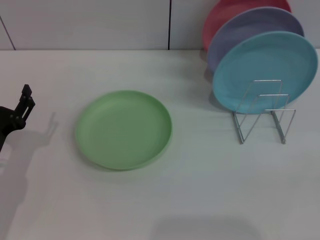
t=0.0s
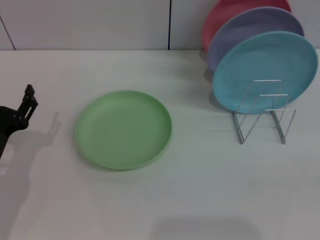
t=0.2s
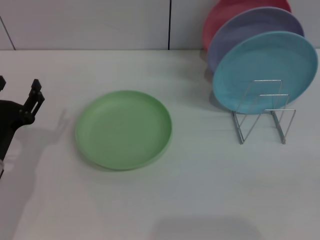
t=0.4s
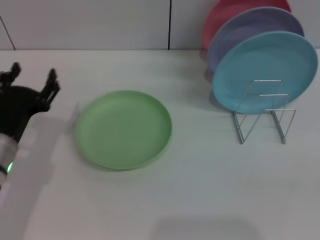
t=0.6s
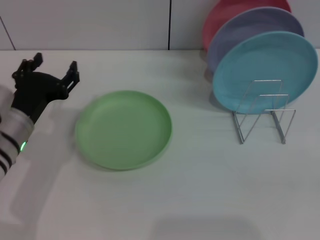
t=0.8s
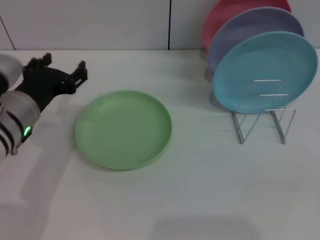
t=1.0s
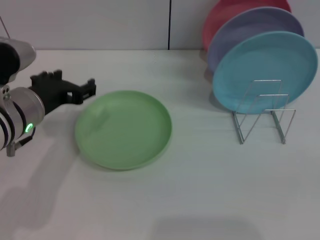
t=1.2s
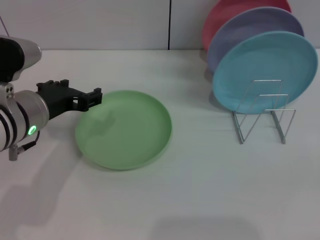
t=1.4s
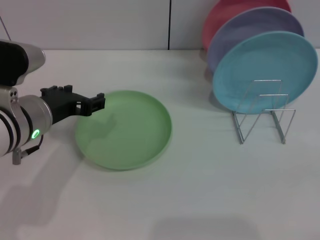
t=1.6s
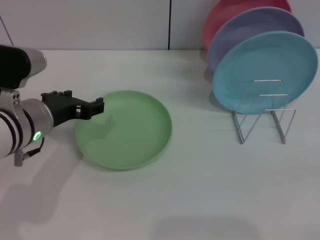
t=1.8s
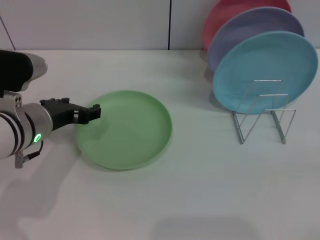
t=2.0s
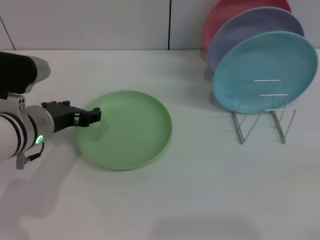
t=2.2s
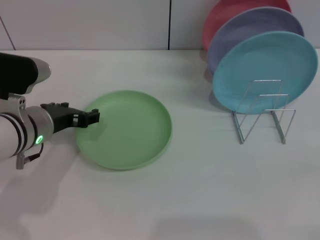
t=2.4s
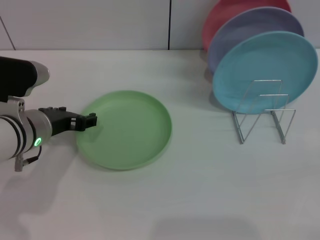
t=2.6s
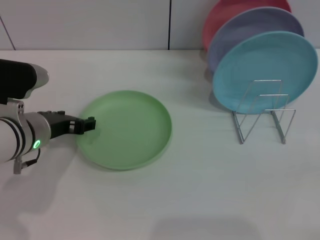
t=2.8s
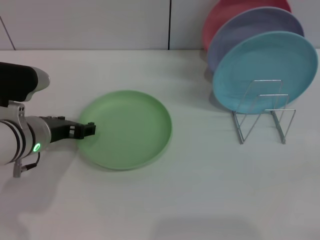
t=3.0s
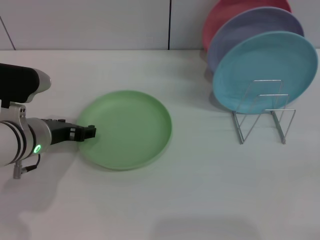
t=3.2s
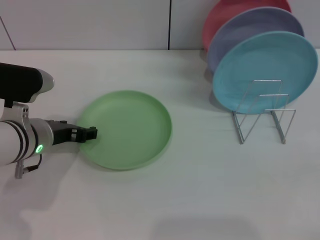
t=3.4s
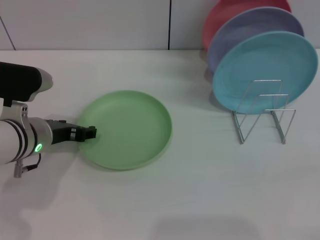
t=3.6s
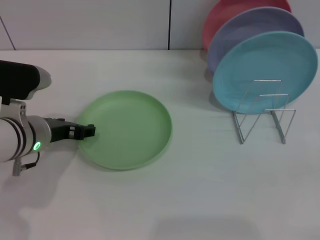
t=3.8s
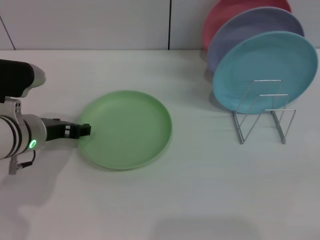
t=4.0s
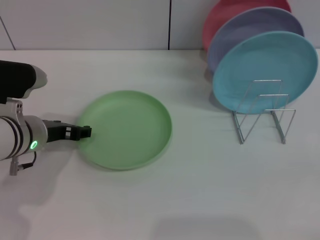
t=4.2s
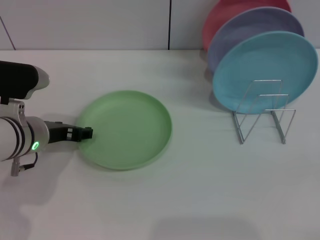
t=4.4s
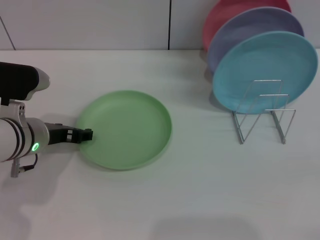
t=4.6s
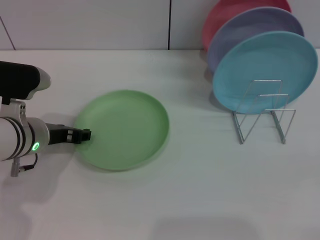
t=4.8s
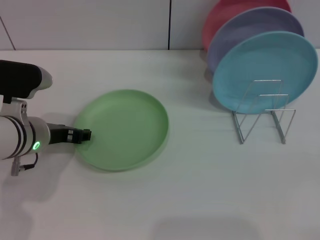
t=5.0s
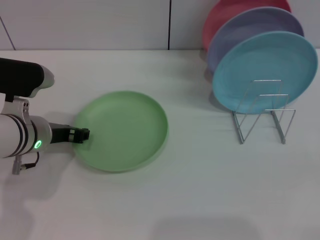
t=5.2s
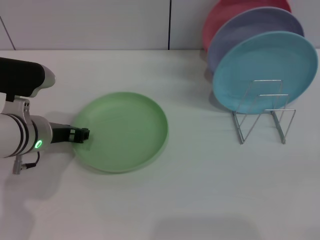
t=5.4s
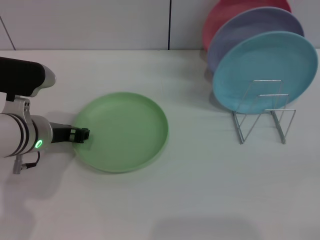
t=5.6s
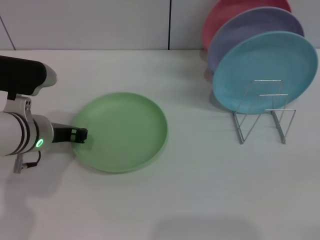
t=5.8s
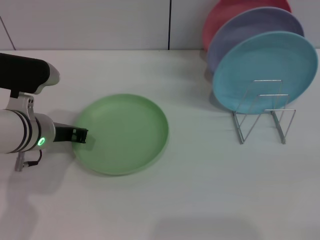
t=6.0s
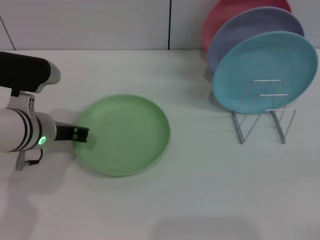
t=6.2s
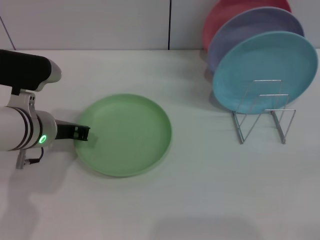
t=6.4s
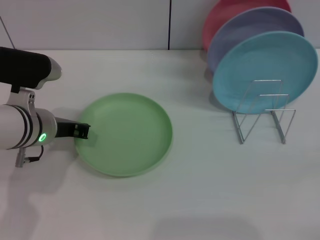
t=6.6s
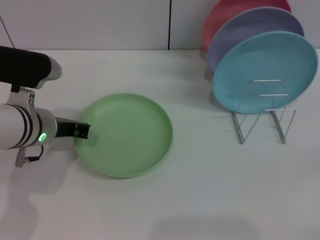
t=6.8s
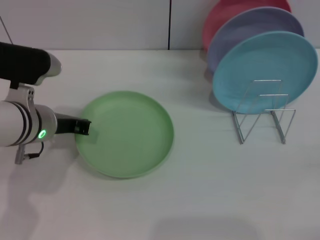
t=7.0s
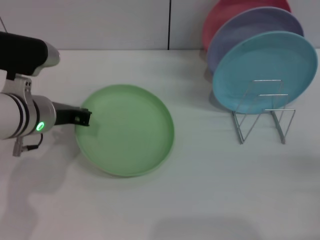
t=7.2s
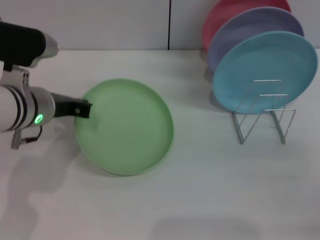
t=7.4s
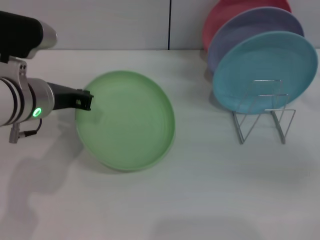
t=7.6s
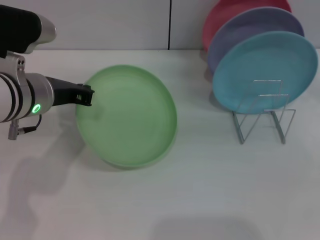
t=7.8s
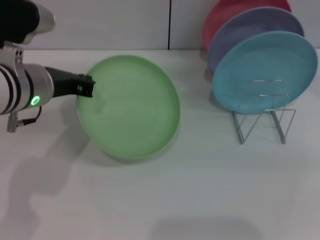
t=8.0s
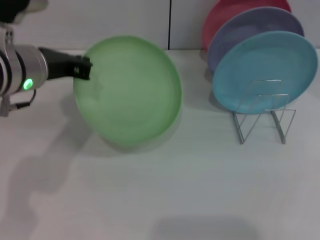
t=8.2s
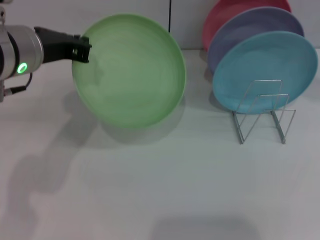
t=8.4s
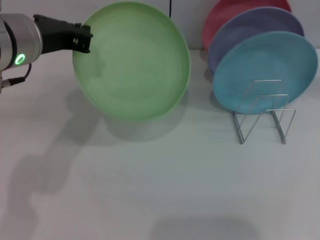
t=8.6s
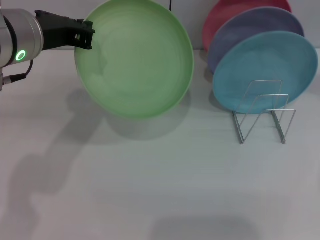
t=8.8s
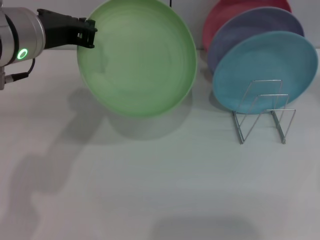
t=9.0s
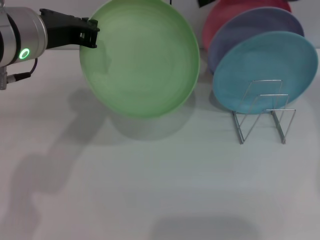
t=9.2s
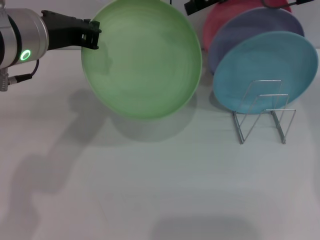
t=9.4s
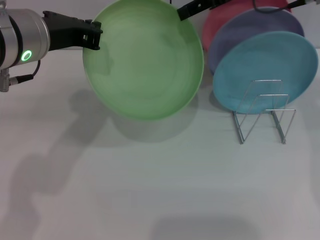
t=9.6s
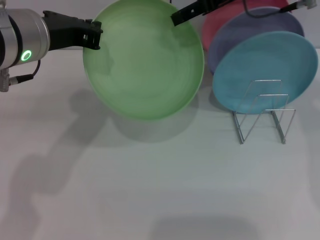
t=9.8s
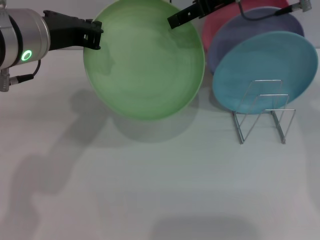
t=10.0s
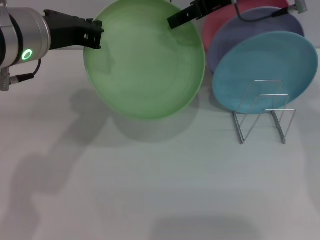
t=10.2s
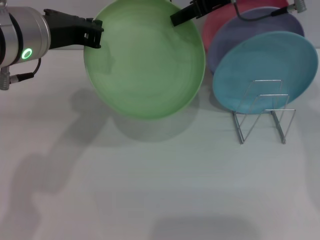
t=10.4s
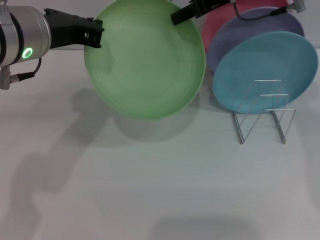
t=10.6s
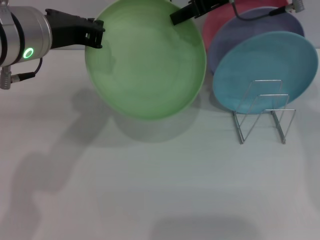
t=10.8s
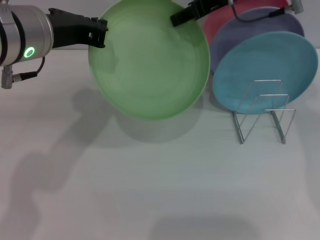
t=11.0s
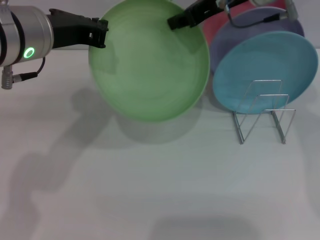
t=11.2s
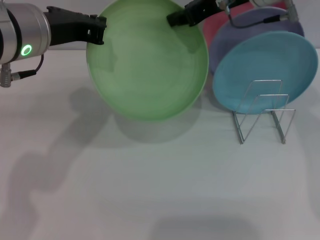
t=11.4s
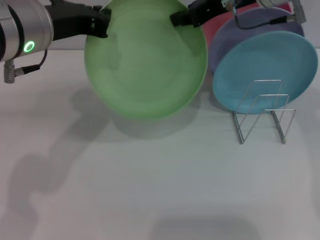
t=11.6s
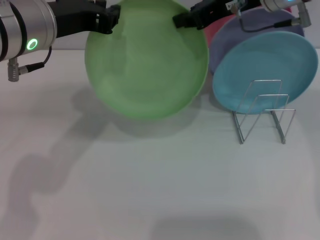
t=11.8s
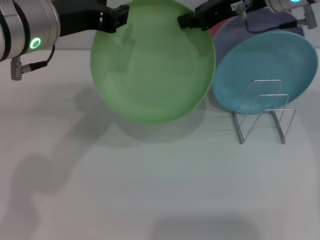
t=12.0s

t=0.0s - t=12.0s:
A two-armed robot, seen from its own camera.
Task of the whole recording: Grip the plate with one hand, pass it to the other, then set it on the shelf.
Step, t=0.0s - t=8.0s: Pick up the plate with the left gripper.
t=0.0s - t=1.6s: The left gripper shifts approximately 15 cm upward and to the right.
t=1.6s - t=3.0s: The left gripper changes place by about 5 cm.
t=3.0s - t=4.4s: Neither gripper changes place.
t=4.4s - t=6.0s: The left gripper closes.
t=6.0s - t=7.6s: The right gripper heads upward and forward, covering some 20 cm; the left gripper heads upward, covering approximately 5 cm.
t=7.6s - t=9.0s: The right gripper shifts approximately 25 cm to the left, forward and upward; the left gripper moves upward, about 10 cm.
t=9.0s - t=10.4s: The right gripper heads to the left, covering approximately 5 cm.
t=10.4s - t=12.0s: The right gripper closes up.

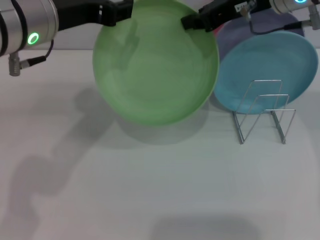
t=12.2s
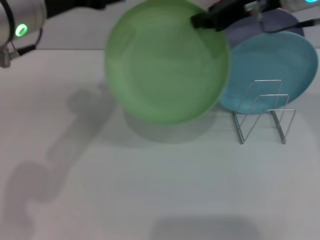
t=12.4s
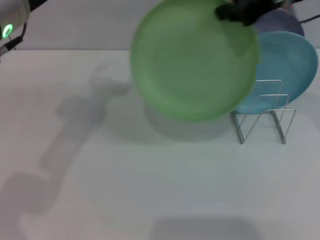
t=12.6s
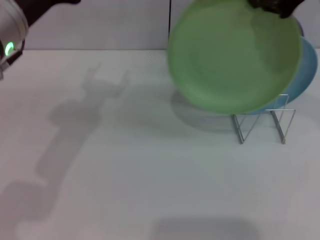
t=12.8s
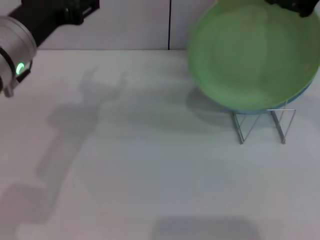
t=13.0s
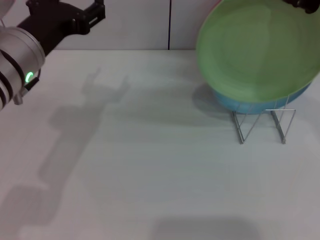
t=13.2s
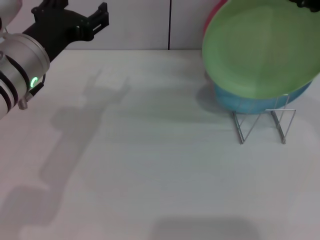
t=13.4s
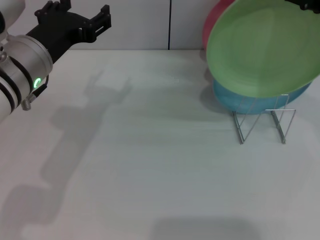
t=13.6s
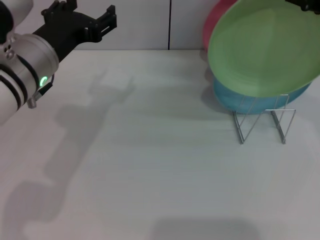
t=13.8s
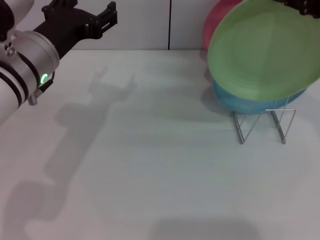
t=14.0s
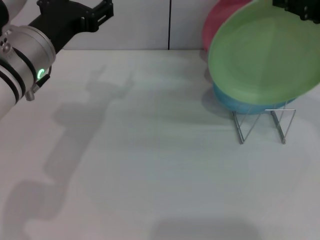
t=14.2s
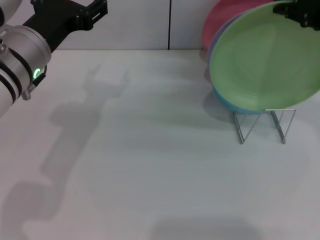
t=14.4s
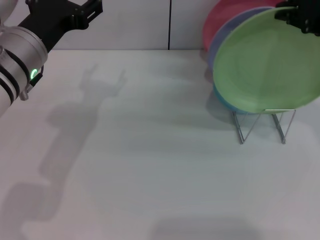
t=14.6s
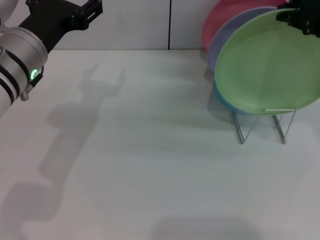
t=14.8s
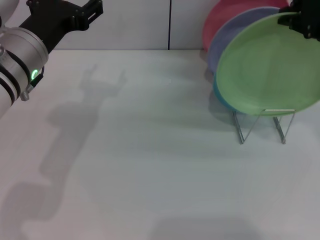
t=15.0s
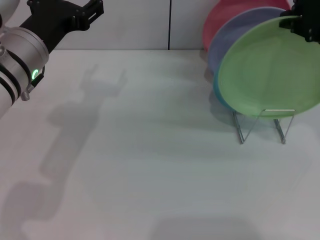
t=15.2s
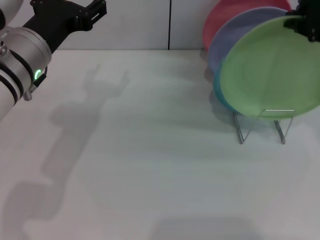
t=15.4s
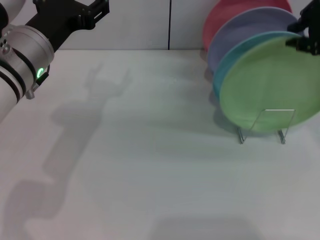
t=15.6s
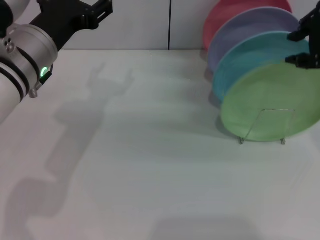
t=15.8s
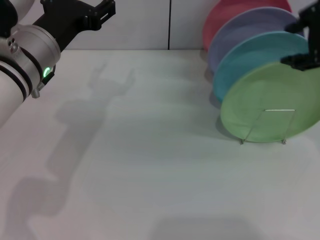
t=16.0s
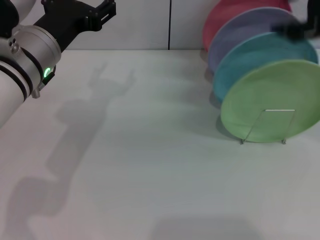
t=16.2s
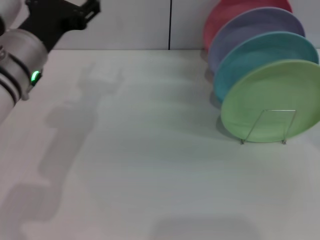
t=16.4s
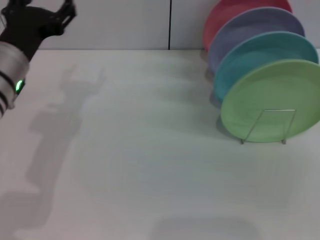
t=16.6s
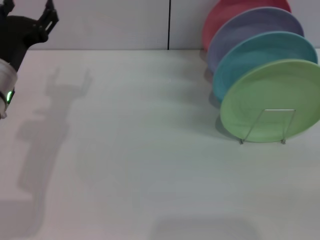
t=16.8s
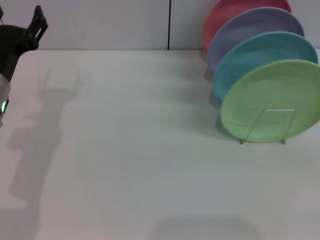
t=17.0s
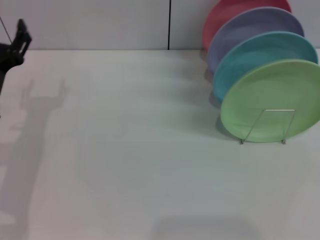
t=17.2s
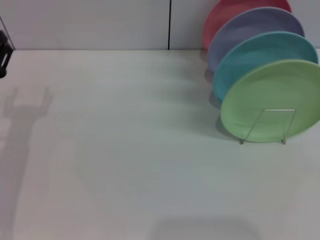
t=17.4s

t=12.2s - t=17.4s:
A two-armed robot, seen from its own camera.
Task of the whole recording: Grip the plate with one hand, pass it to the other, then set it on the shelf.
Step, t=12.4s - t=16.0s: Place the plate on the shelf with the right gripper.
t=12.2s - t=14.0s: The left gripper goes roughly 10 cm downward, and opens its fingers. Meanwhile the right gripper is displaced upward, backward and to the right by roughly 10 cm.
t=14.0s - t=15.6s: The grippers make only small movements.
t=15.6s - t=17.4s: The left gripper heads downward and to the left, covering about 15 cm. The right gripper travels to the right, backward and downward by some 40 cm, and opens up.

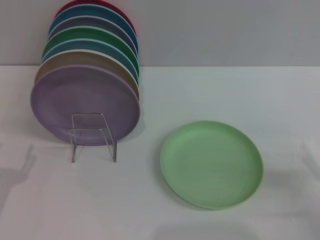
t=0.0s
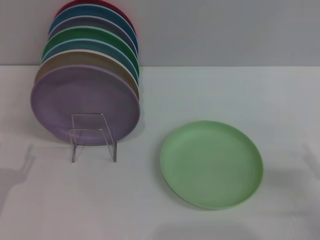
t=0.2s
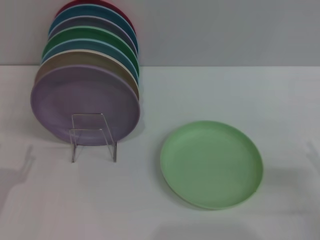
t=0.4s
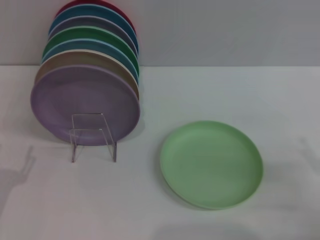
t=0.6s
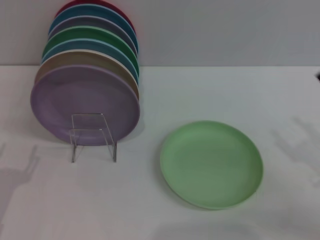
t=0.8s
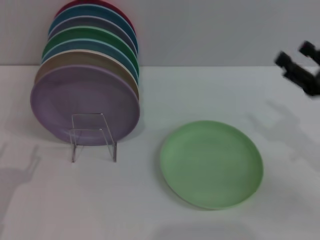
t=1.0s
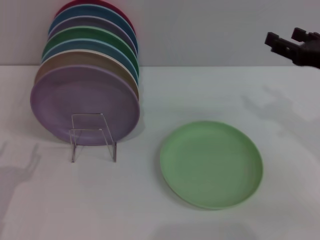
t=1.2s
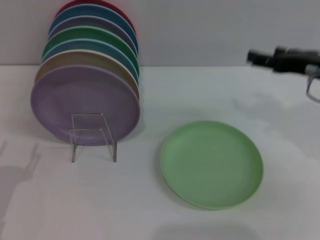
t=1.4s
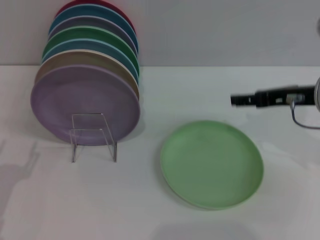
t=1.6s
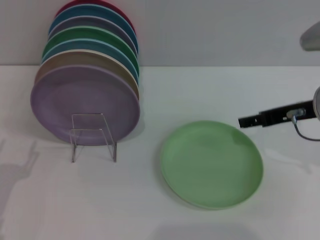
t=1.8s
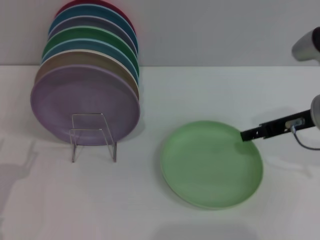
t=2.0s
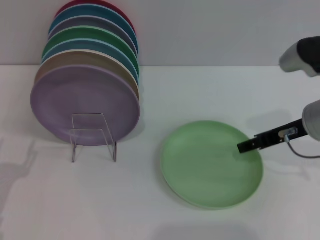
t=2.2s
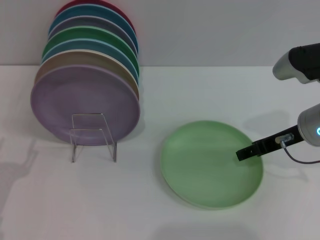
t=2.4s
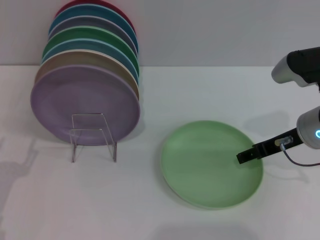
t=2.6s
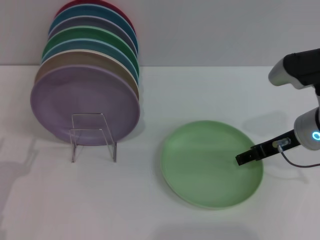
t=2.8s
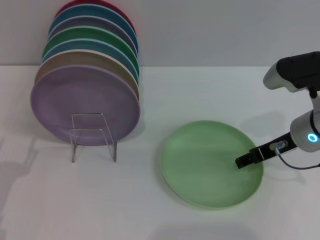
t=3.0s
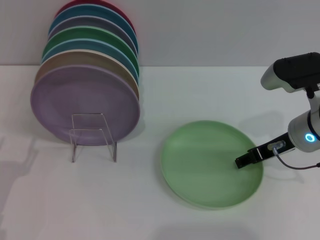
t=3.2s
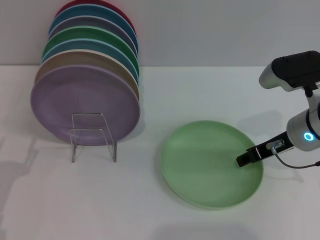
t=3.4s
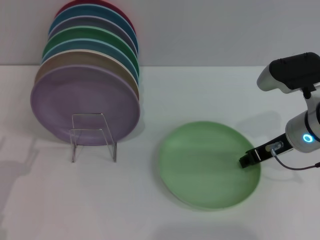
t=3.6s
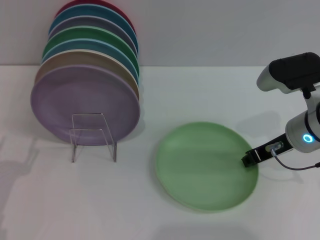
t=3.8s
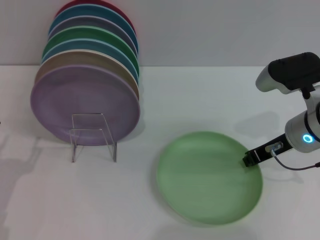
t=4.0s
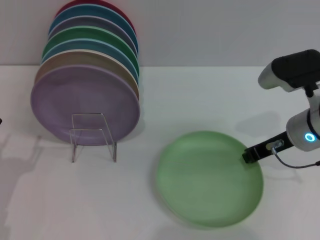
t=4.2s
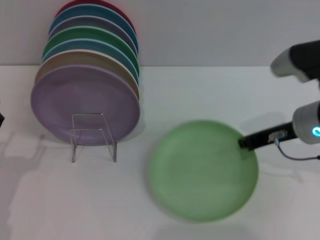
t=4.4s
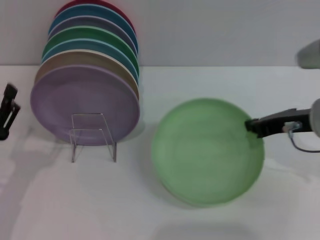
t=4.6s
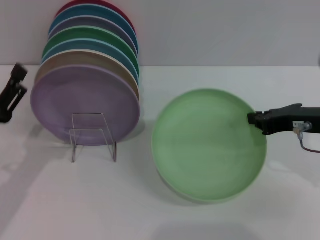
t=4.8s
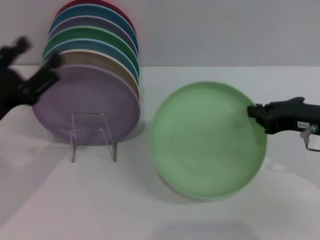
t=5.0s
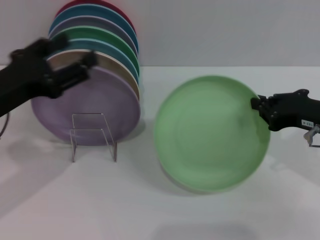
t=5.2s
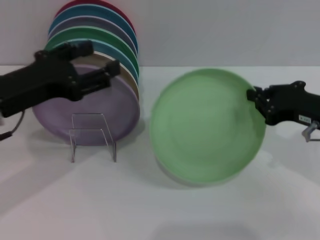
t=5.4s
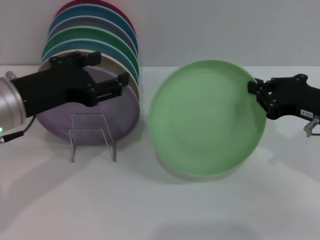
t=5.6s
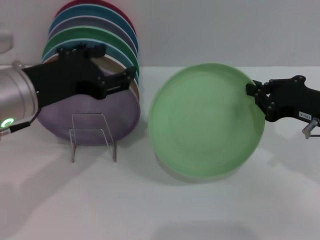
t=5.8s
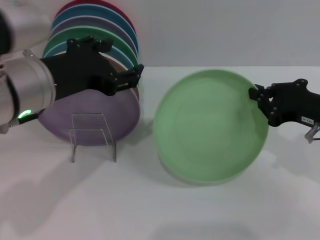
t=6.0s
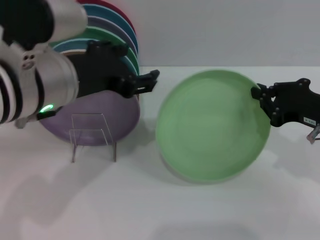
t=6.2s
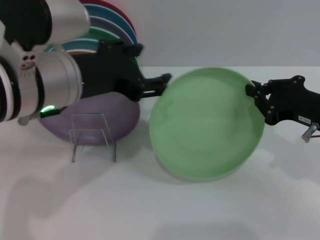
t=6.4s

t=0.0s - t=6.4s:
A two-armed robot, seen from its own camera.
Task of the whole recording: Grip the plate with one hand, pass it to the other, then set it on the shelf.
Step, t=0.0s - t=5.0s: Pick up the plate with the right gripper.
t=0.0s - t=1.6s: The right gripper moves forward, upward and to the left, some 25 cm.
t=1.6s - t=3.2s: The right gripper is displaced downward by approximately 5 cm.
t=3.2s - t=4.8s: The right gripper moves about 5 cm, and closes its fingers. The left gripper travels upward by approximately 5 cm.
t=4.8s - t=6.4s: The left gripper shifts some 20 cm upward and to the right.
